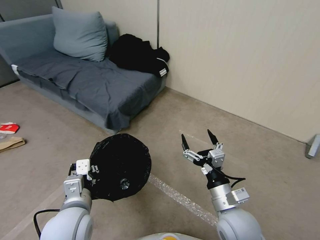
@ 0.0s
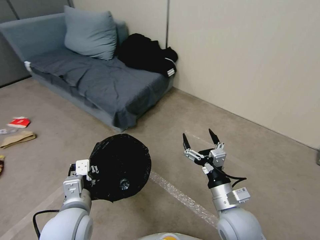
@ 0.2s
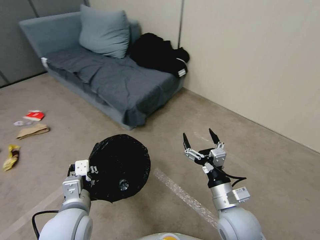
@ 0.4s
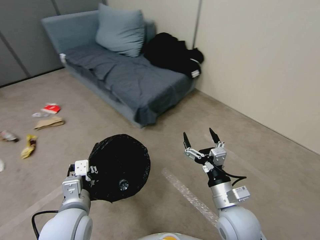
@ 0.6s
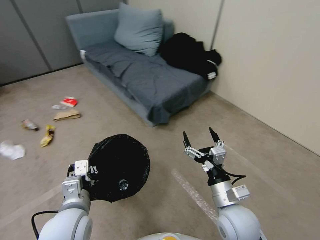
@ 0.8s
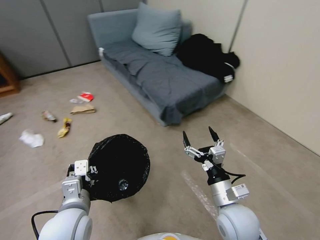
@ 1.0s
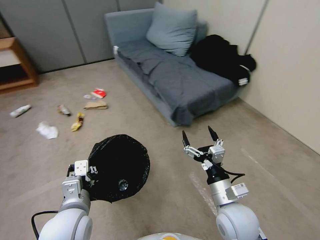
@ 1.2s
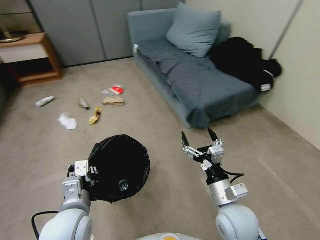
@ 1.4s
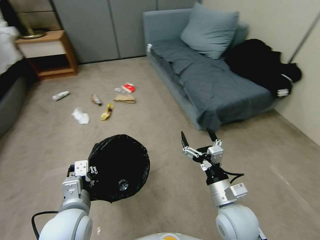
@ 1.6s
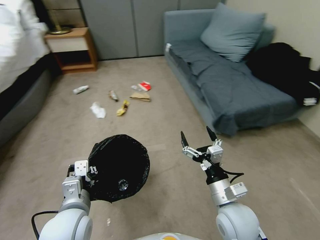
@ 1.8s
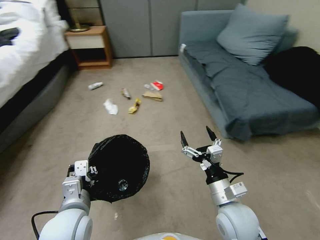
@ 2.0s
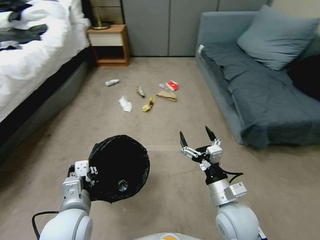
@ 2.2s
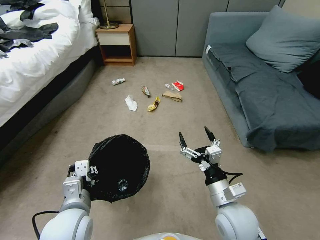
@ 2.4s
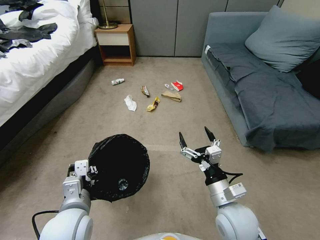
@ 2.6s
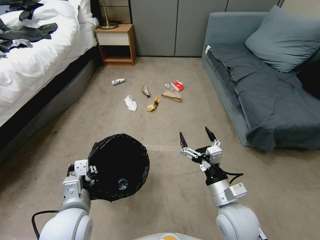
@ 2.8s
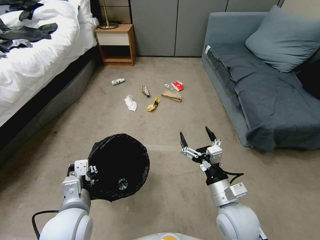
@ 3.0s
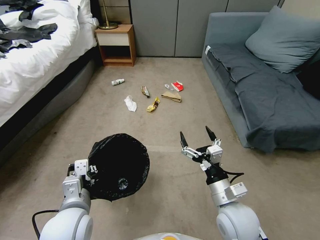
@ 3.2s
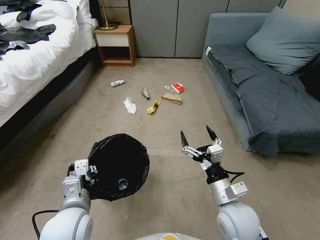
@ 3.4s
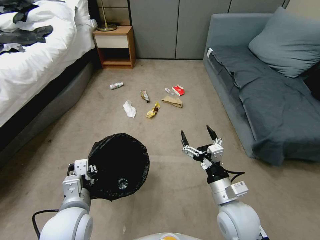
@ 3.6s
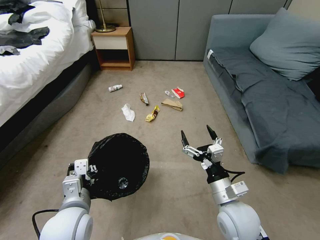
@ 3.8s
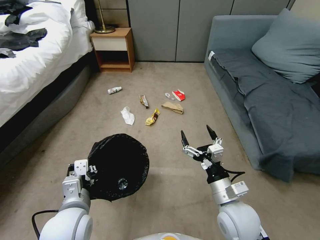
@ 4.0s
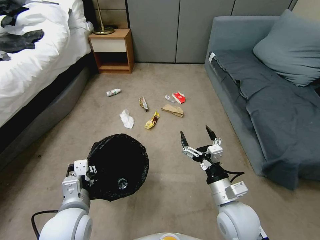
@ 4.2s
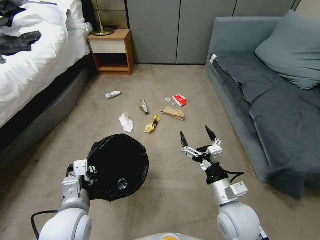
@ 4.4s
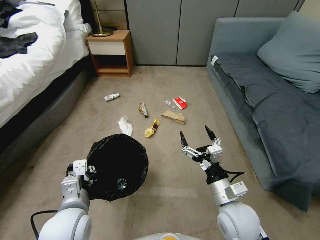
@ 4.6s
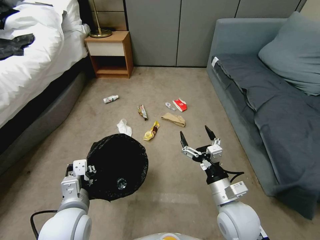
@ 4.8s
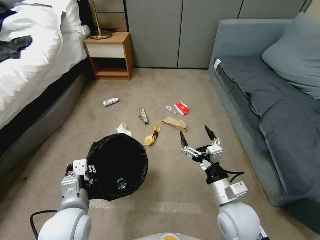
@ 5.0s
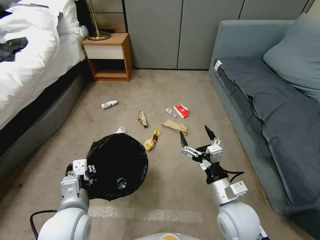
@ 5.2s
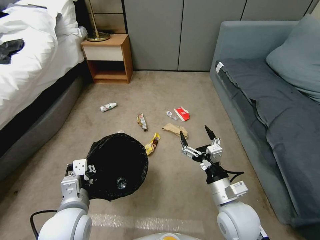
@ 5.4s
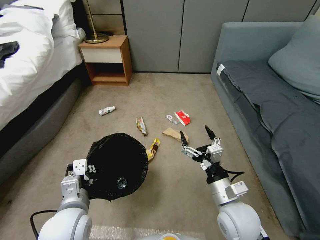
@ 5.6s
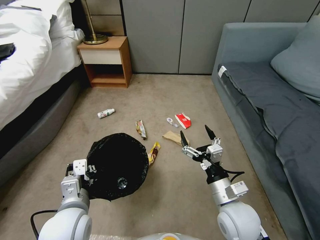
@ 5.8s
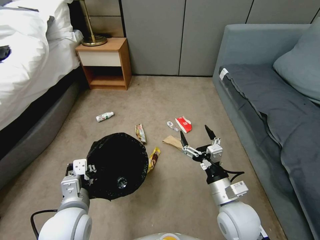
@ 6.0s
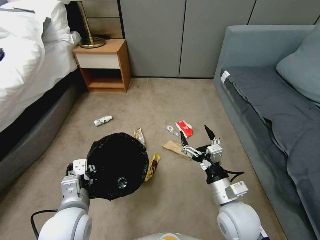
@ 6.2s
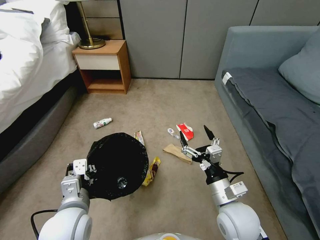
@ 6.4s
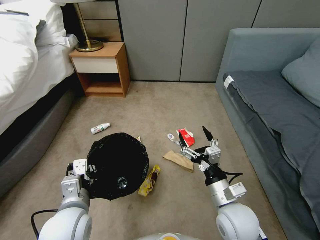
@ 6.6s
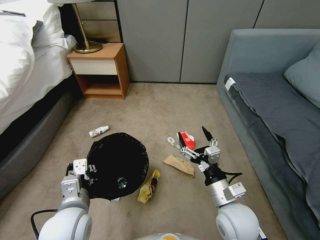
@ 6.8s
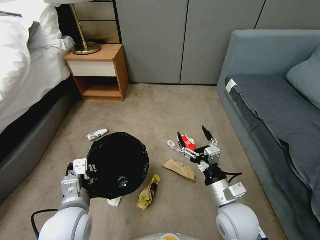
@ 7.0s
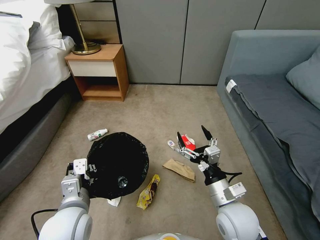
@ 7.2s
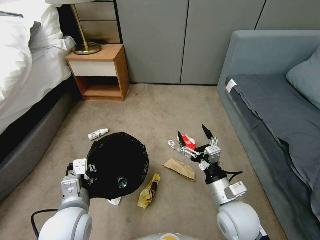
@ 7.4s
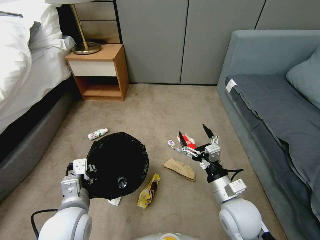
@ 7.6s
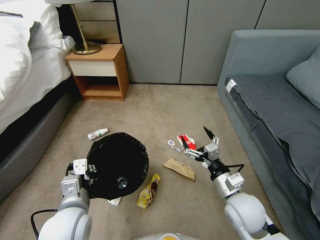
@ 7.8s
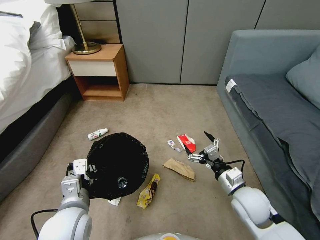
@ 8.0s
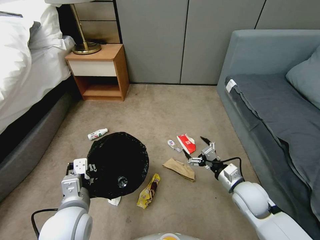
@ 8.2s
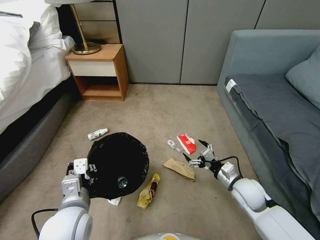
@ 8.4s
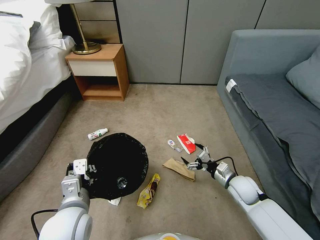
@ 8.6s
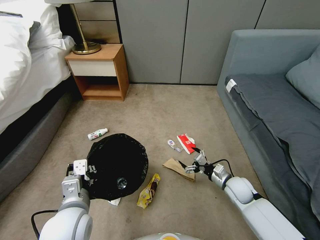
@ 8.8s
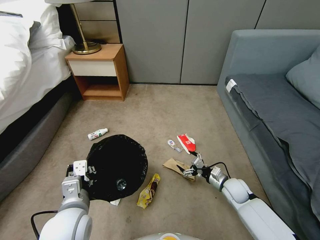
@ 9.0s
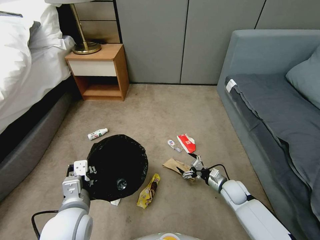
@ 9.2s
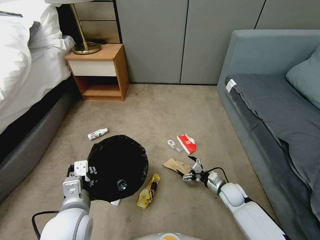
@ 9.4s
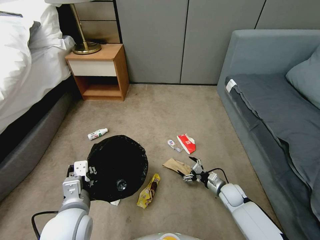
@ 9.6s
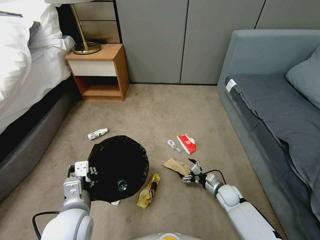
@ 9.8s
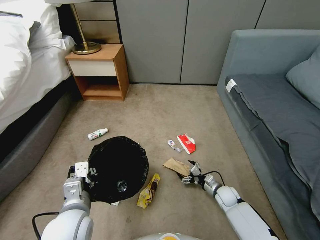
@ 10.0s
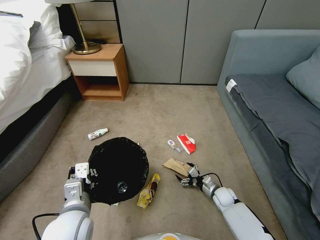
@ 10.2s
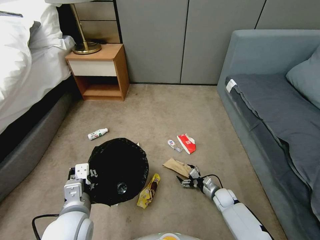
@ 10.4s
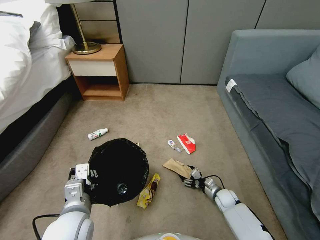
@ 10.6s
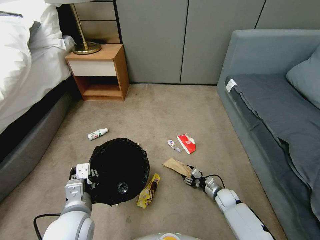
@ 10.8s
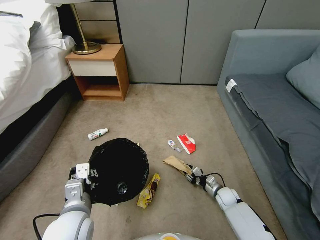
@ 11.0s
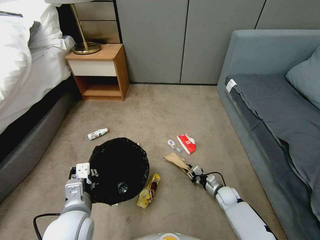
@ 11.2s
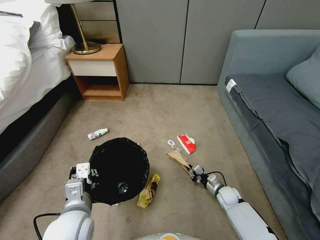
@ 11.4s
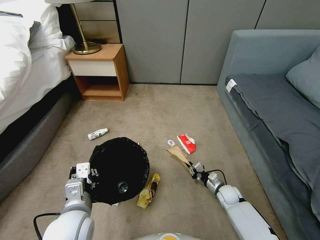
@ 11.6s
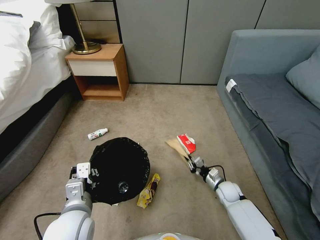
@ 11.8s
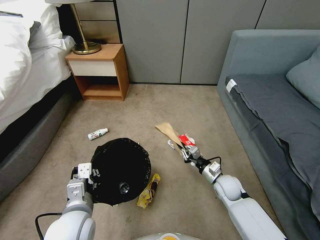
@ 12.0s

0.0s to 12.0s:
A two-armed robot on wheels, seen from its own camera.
Task of the whole recording: Pick up the trash bin, then pick up the garbage from the floor and place it into the trash bin.
7.6s to 9.0s: The right gripper is displaced downward, forward and to the right by some 20 cm.
9.0s to 10.4s: The right gripper goes about 10 cm downward.
10.4s to 12.0s: The right gripper goes some 15 cm upward, and closes its fingers.

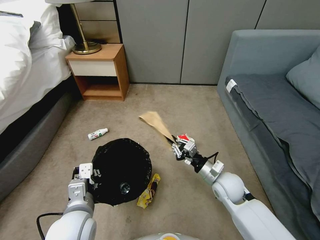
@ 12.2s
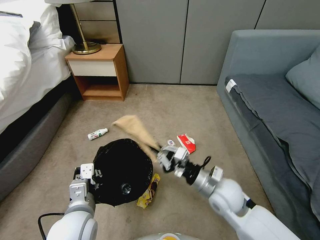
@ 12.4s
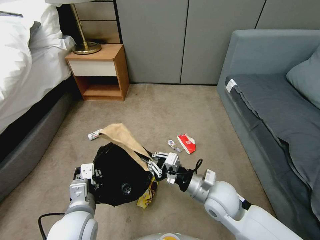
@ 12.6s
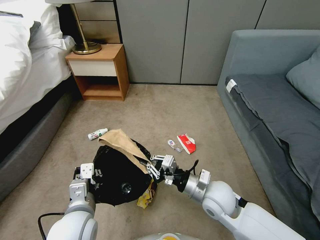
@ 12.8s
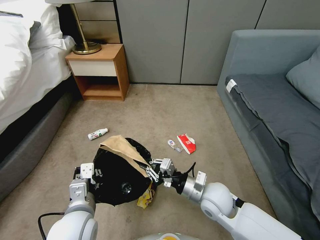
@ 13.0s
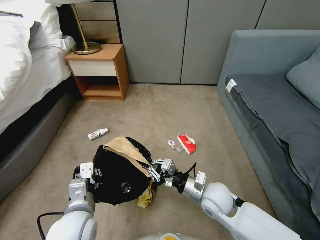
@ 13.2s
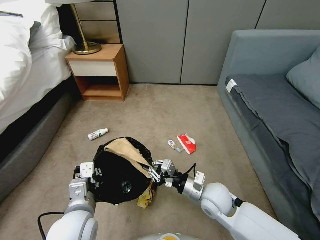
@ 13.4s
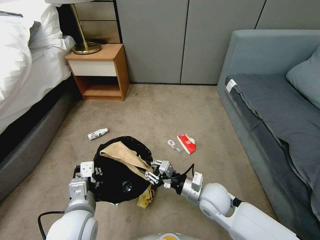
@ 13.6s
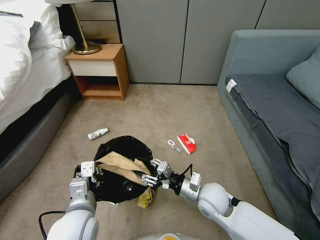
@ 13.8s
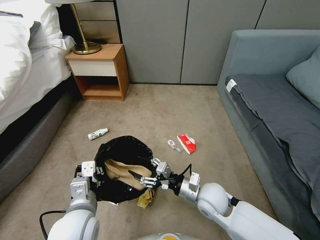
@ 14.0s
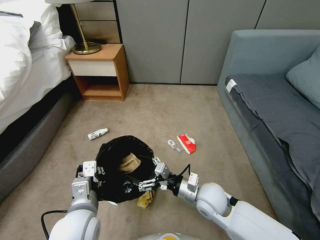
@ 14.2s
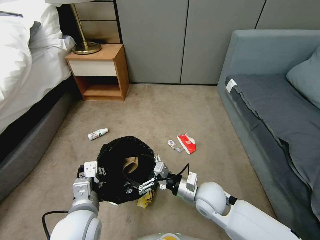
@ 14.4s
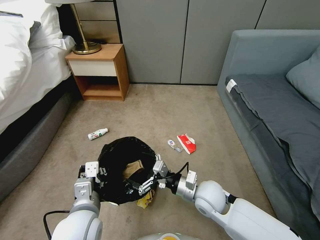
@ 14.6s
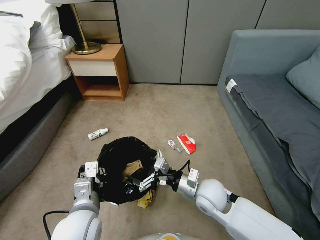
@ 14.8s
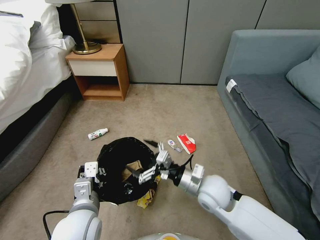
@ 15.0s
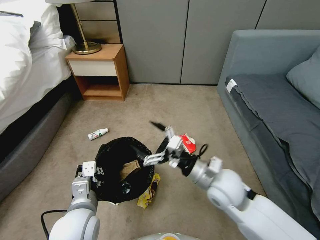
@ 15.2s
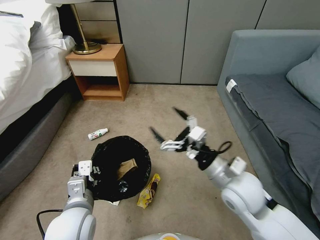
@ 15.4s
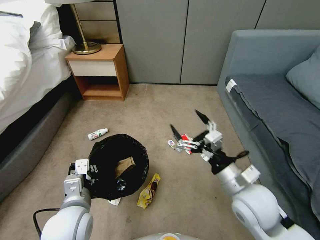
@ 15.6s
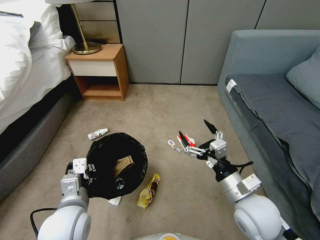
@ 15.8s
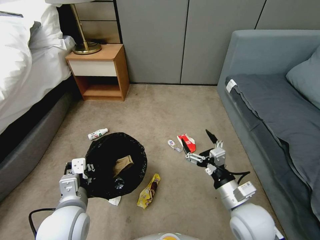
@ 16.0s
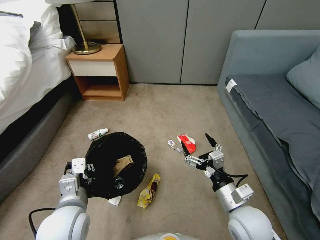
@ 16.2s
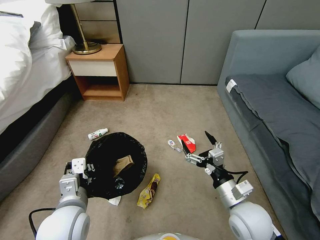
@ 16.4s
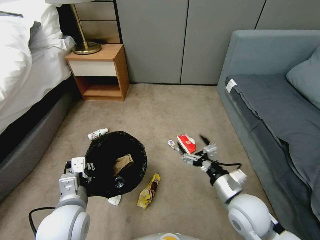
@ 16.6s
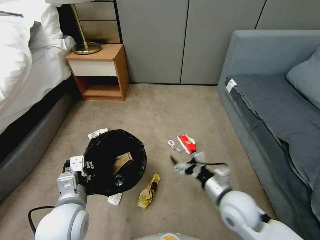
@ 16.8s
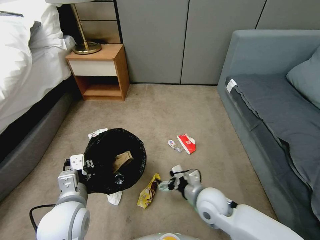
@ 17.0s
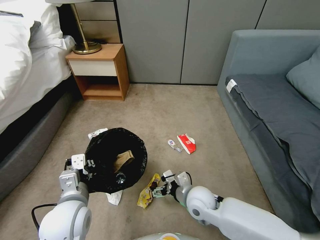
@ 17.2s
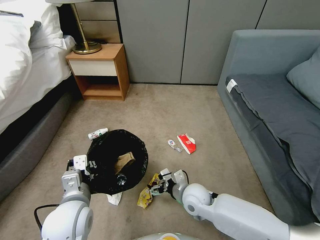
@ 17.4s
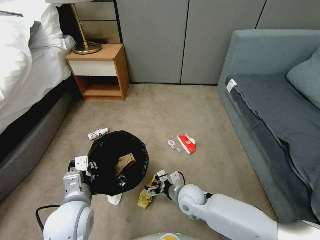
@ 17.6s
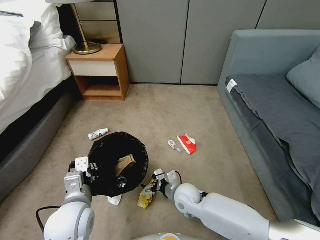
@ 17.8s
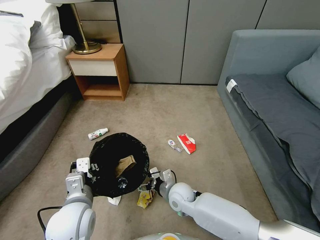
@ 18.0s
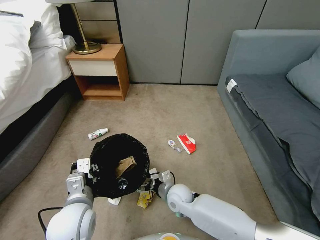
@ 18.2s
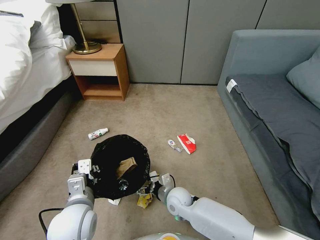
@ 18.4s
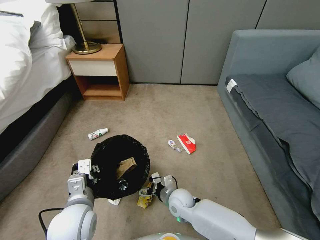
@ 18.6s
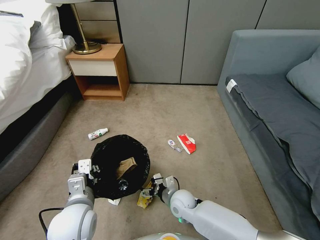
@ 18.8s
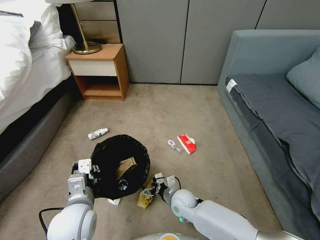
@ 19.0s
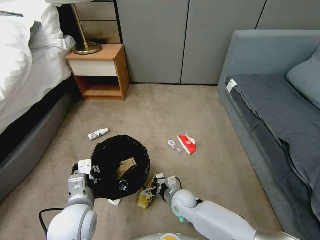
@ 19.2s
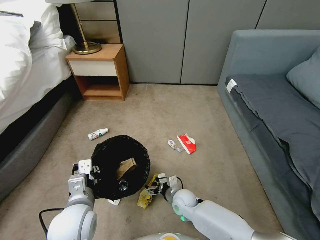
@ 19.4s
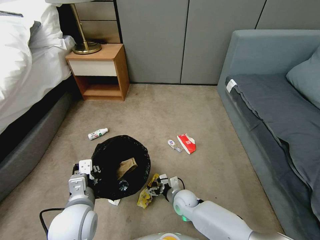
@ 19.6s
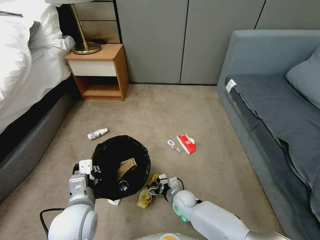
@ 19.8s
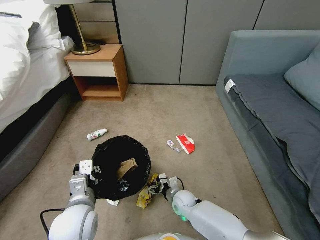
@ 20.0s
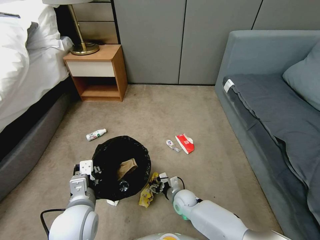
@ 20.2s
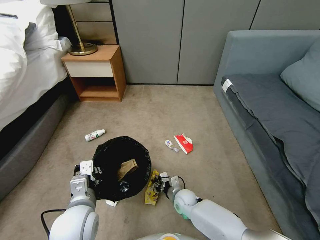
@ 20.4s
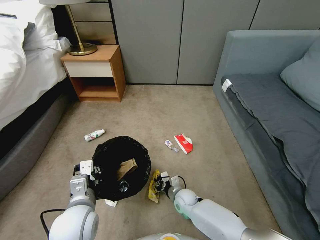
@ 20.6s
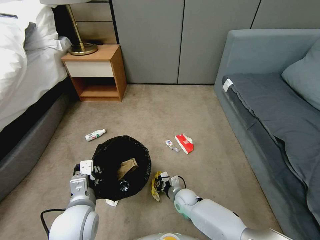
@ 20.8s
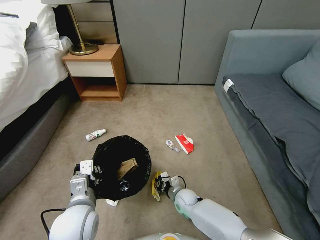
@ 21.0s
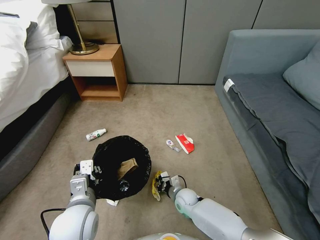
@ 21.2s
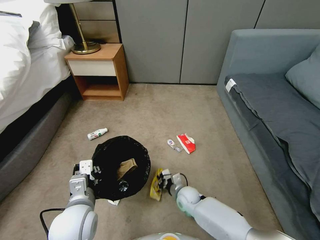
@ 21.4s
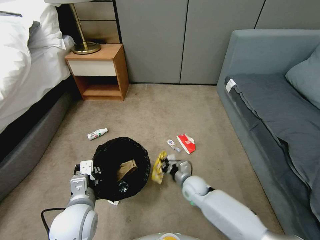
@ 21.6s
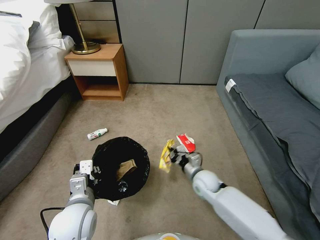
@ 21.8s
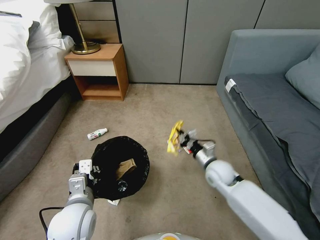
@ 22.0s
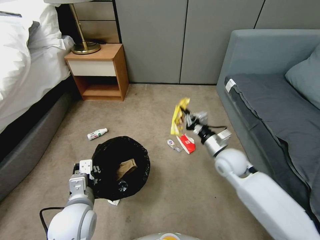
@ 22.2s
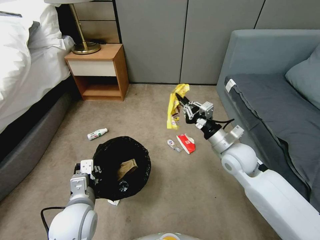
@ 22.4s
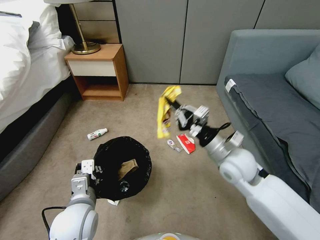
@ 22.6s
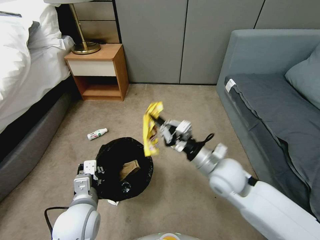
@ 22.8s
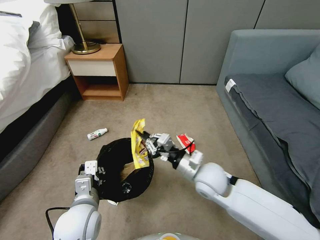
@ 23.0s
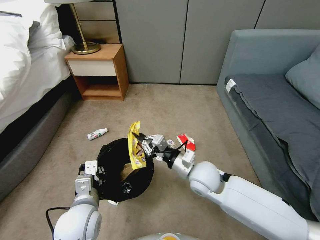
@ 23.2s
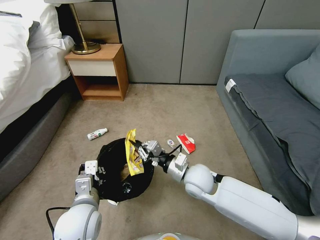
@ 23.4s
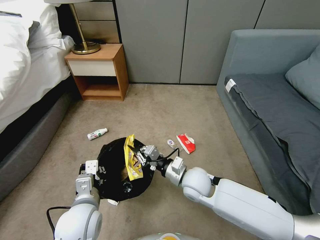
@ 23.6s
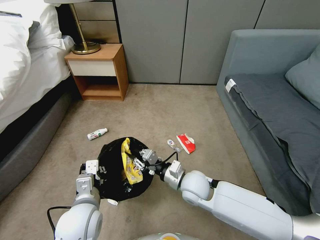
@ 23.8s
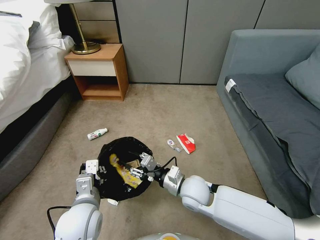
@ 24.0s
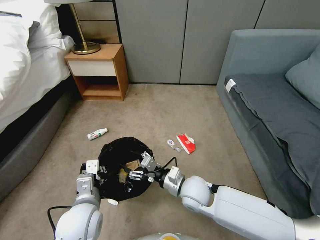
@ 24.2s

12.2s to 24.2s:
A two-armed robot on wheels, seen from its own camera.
Task of the whole recording: Pick up the trash bin, then pick up the garbage from the floor and place it into the trash bin.
12.2s to 13.8s: The right gripper heads to the left, covering roughly 5 cm, and opens.
13.8s to 15.2s: The right gripper is displaced upward by approximately 10 cm, and opens.
15.2s to 16.6s: The right gripper shifts some 10 cm to the right and backward.
16.6s to 18.2s: The right gripper is displaced to the left, downward and forward by roughly 25 cm.
18.2s to 19.8s: The right gripper goes about 10 cm downward.
19.8s to 21.2s: The right gripper closes.
21.2s to 22.6s: The right gripper shifts approximately 30 cm upward.
22.6s to 24.2s: The right gripper goes about 15 cm downward and to the left, and opens up.
